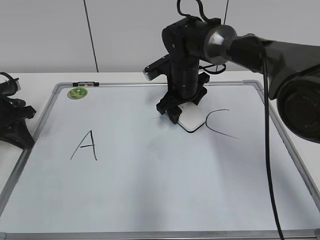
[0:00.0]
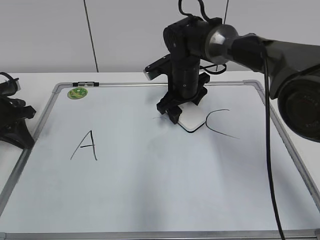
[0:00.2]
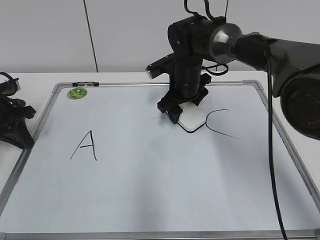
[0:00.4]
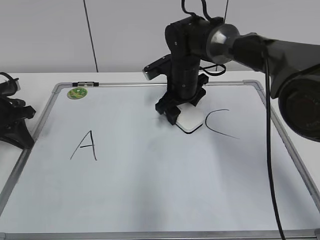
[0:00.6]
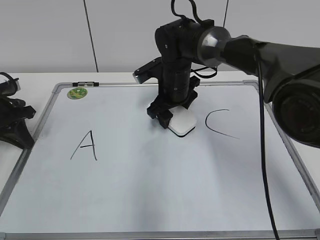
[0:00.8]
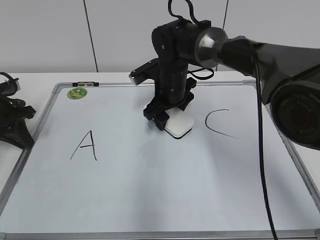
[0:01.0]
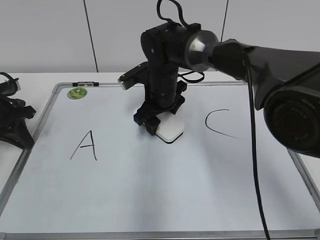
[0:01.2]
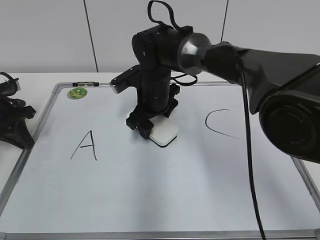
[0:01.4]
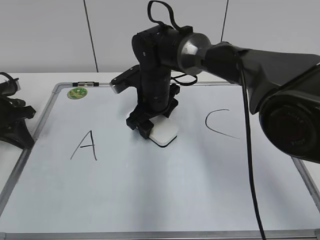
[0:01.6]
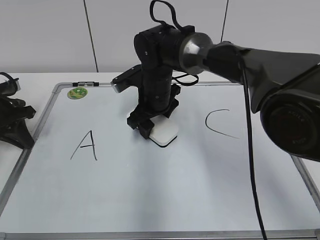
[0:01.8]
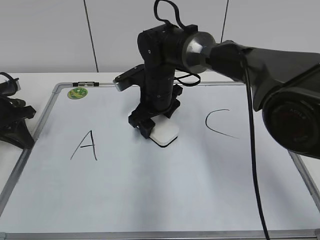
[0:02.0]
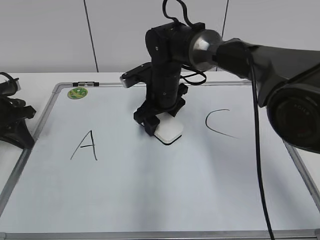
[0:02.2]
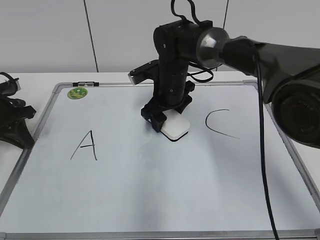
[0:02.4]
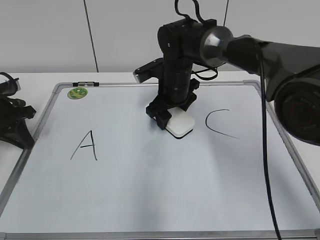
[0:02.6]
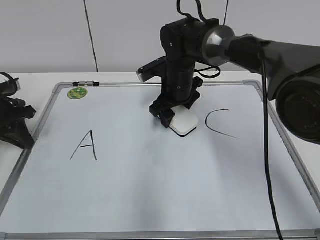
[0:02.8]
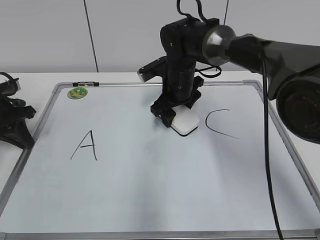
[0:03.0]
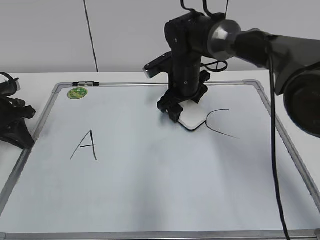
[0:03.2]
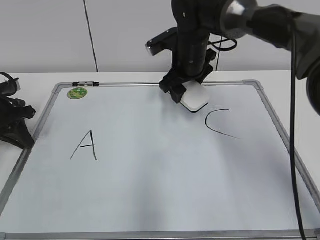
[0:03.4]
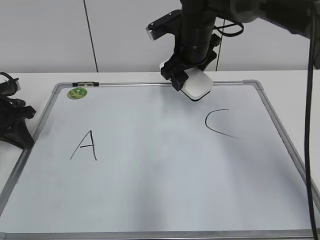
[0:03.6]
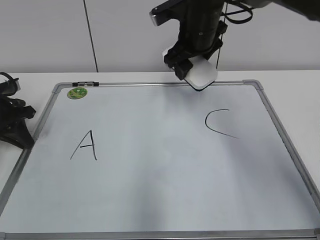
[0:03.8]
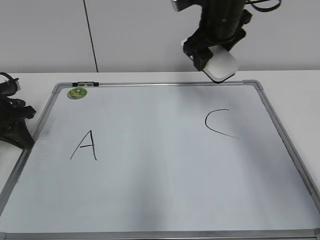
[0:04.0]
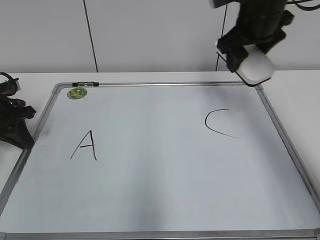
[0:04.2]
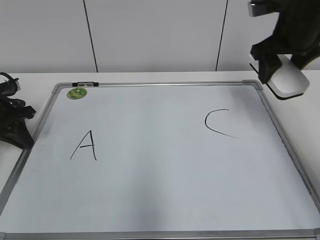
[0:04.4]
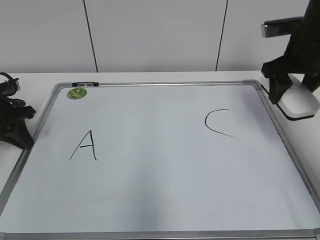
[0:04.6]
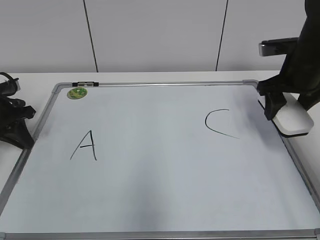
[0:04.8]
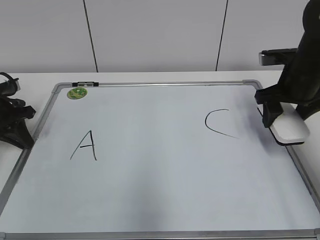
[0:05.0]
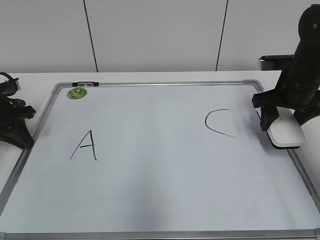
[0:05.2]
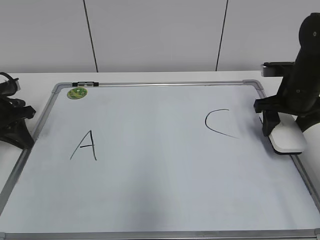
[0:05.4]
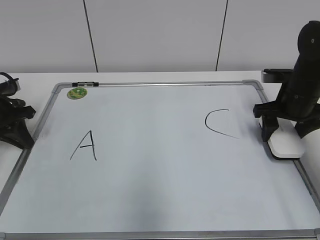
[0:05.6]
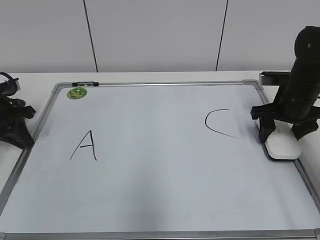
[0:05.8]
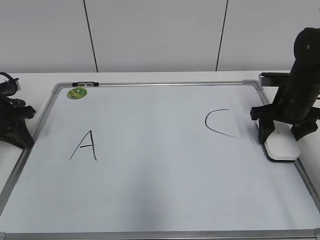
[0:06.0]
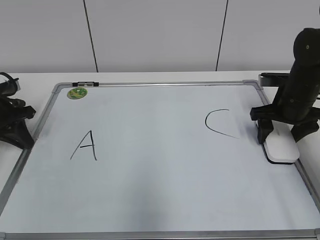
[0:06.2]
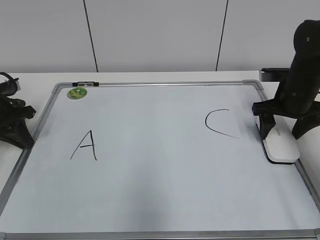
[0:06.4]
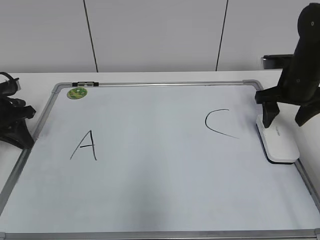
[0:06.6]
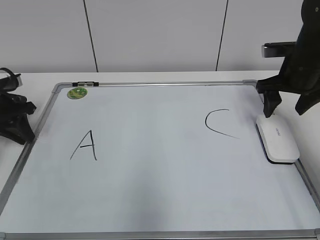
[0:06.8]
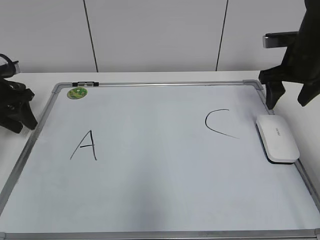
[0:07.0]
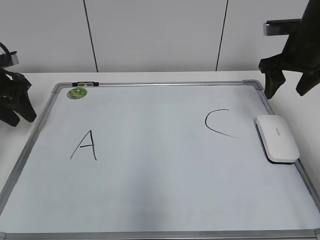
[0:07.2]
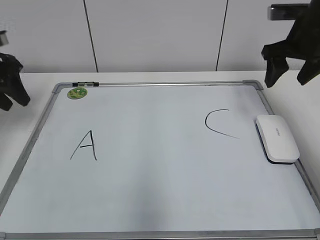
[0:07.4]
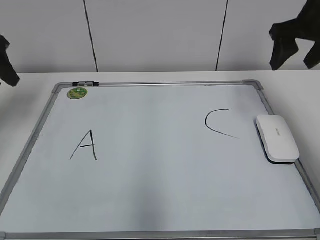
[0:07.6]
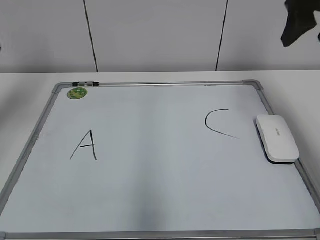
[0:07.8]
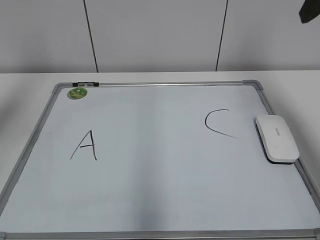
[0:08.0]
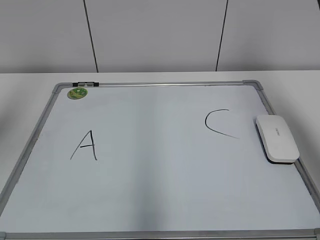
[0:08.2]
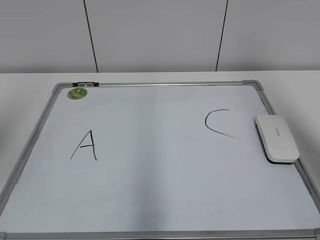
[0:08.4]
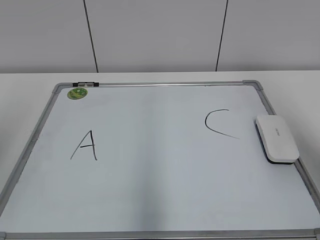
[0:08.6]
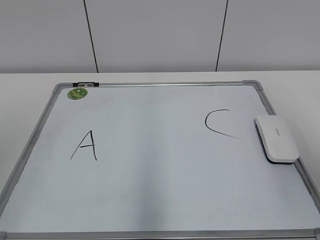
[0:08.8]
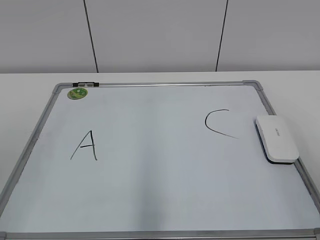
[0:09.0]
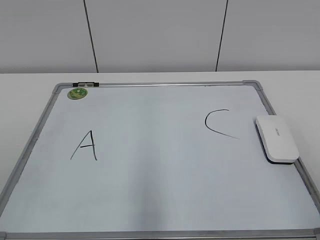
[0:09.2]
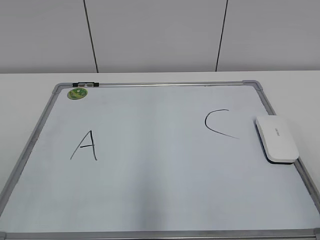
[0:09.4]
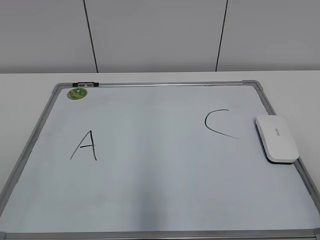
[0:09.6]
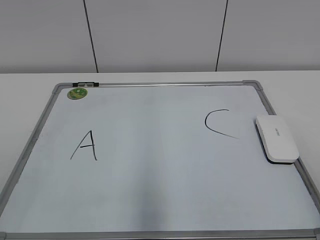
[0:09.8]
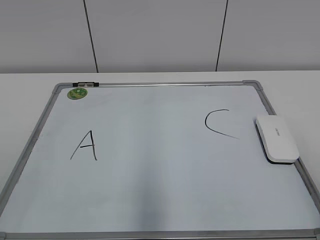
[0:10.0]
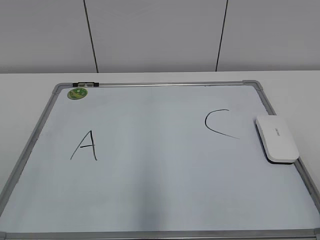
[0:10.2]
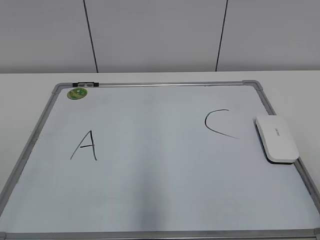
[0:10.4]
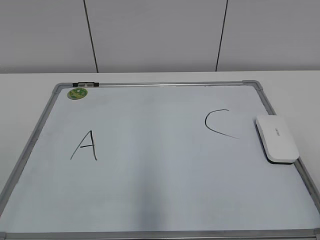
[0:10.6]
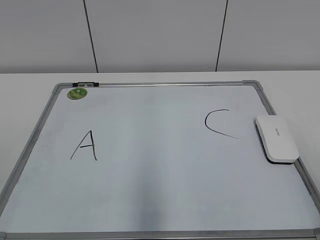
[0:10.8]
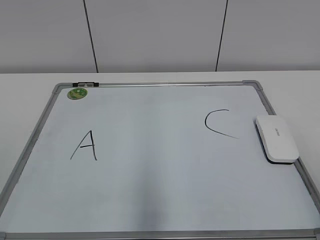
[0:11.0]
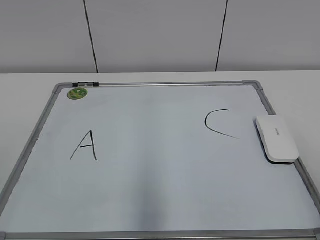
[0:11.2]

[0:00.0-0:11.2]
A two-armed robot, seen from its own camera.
Task of the whole recording: pick up the eraser on the blackboard and erase the letter "B".
Step, 0:00.0 to 0:03.0: Erase the letter B with your right hand.
Step, 0:03.2 to 0:06.4: Put down the eraser with your right hand.
0:00.0 to 0:01.6: The right gripper shifts roughly 5 cm to the left.
0:01.6 to 0:03.2: The right gripper travels to the right by some 5 cm.
0:03.2 to 0:04.8: The right gripper shifts roughly 20 cm to the right.
0:04.8 to 0:06.4: The right gripper is displaced downward by about 5 cm.
0:06.4 to 0:08.0: The grippers both shift upward by approximately 25 cm. The left gripper opens up.
0:08.0 to 0:09.6: The two grippers go approximately 30 cm backward and downward.

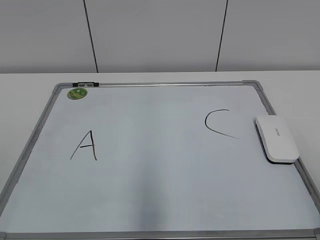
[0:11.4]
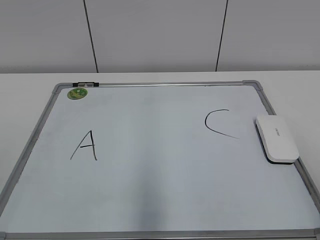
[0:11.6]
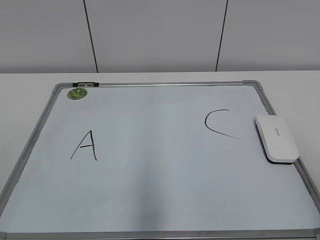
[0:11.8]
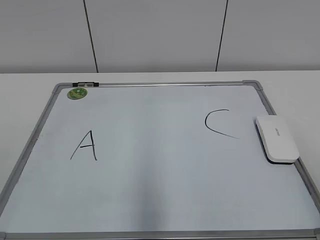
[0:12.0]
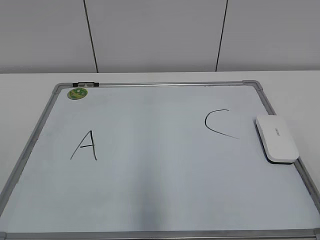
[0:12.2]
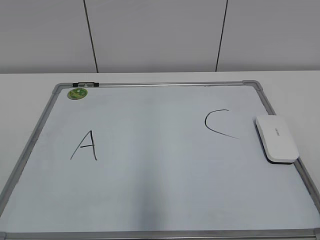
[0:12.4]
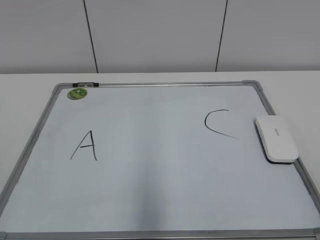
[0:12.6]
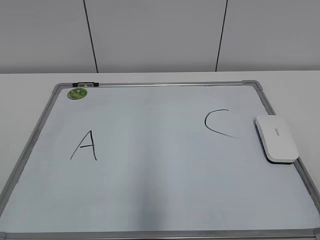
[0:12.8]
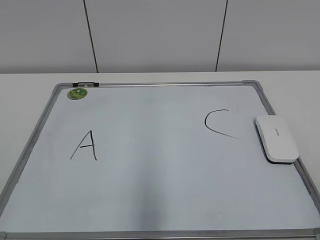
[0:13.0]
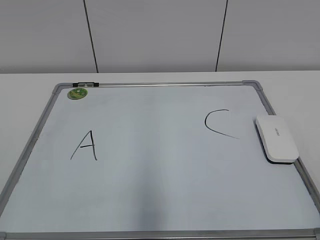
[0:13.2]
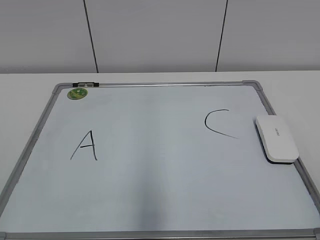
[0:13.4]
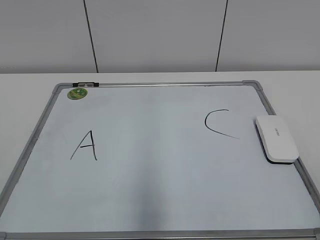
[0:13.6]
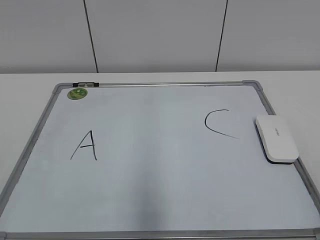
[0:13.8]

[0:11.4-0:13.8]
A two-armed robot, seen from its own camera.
Task of the whole recording: pick up the eraser on the blackboard and erase the letter "B".
0:12.6 to 0:13.8: Neither gripper changes place.
